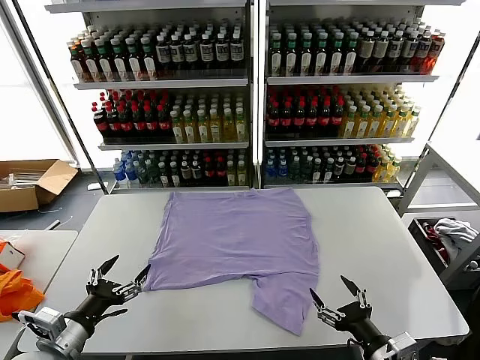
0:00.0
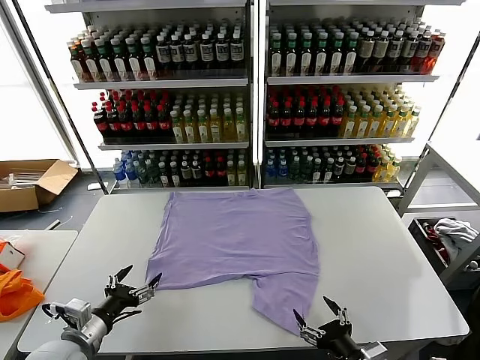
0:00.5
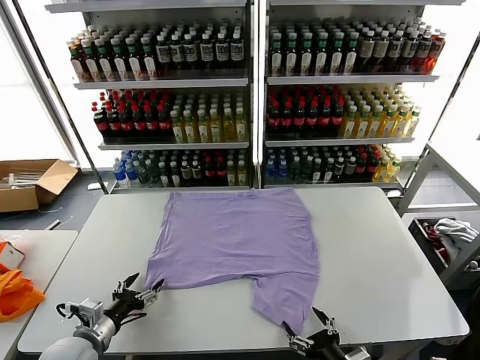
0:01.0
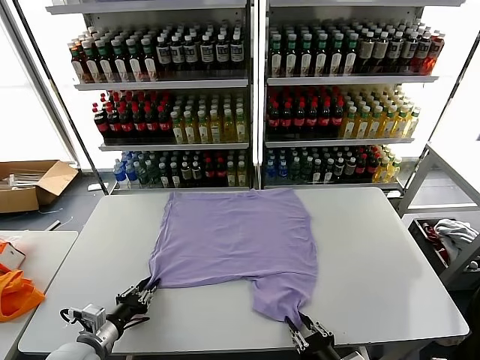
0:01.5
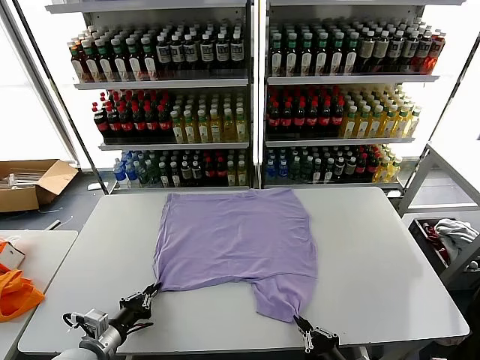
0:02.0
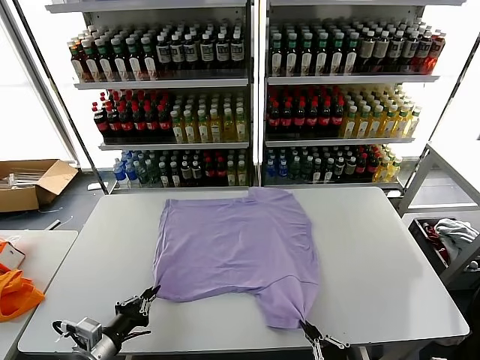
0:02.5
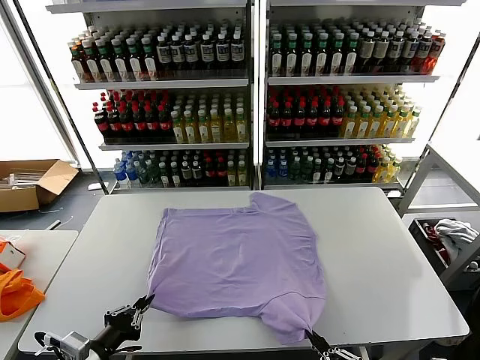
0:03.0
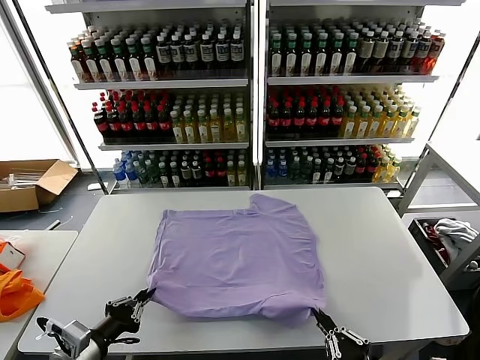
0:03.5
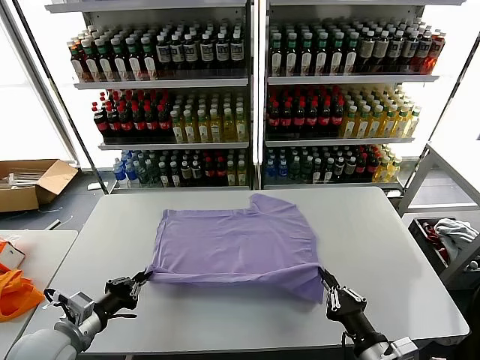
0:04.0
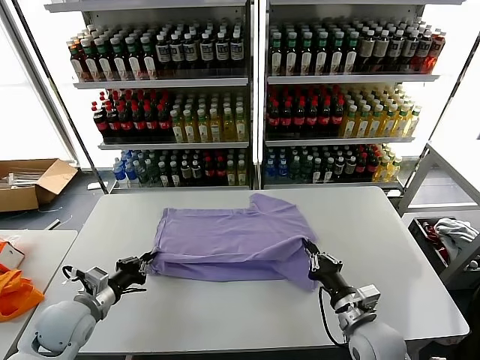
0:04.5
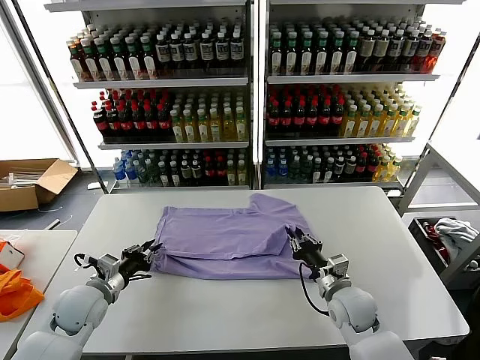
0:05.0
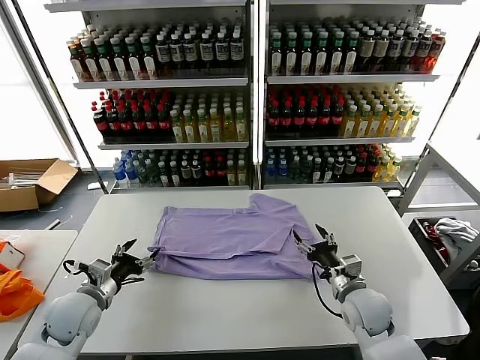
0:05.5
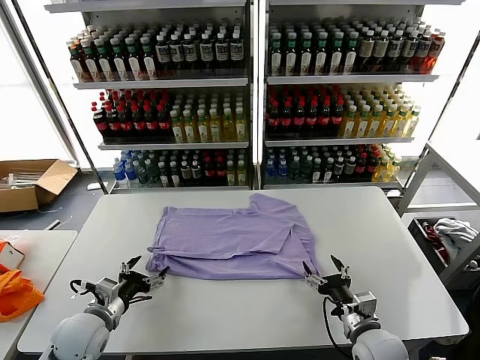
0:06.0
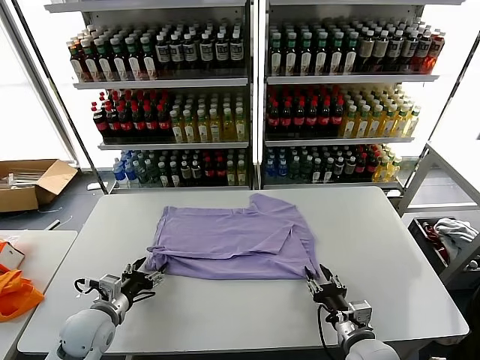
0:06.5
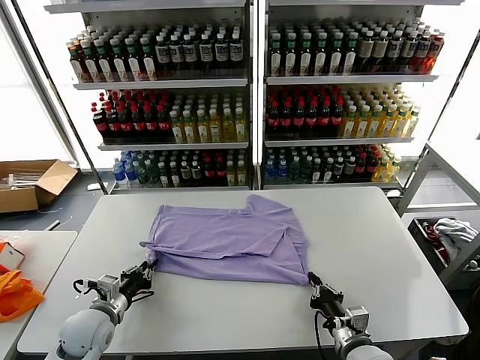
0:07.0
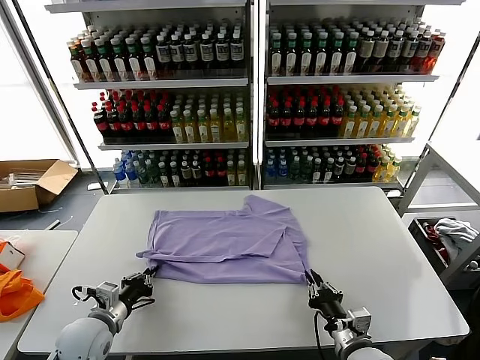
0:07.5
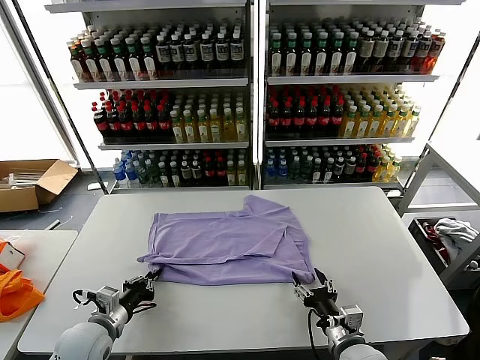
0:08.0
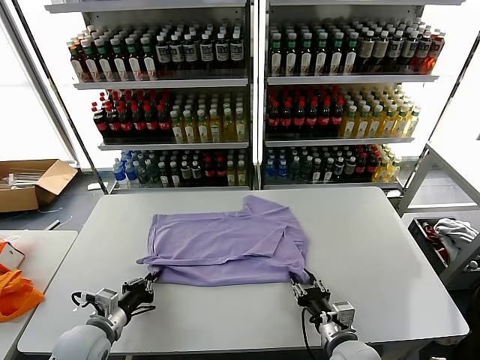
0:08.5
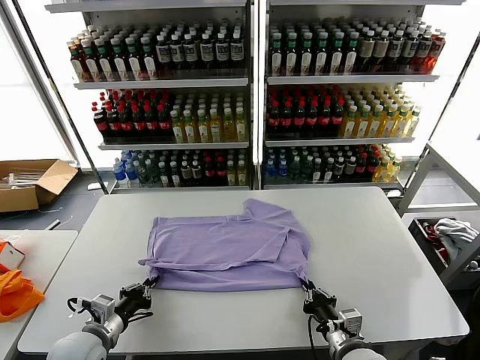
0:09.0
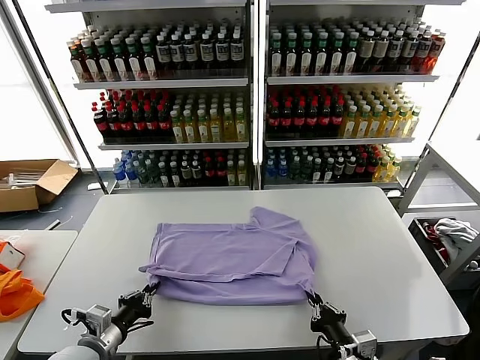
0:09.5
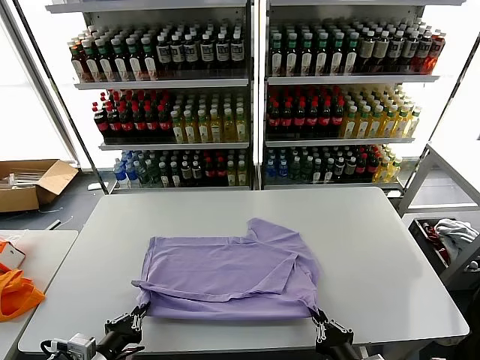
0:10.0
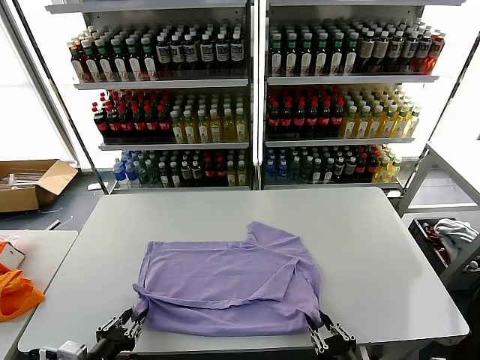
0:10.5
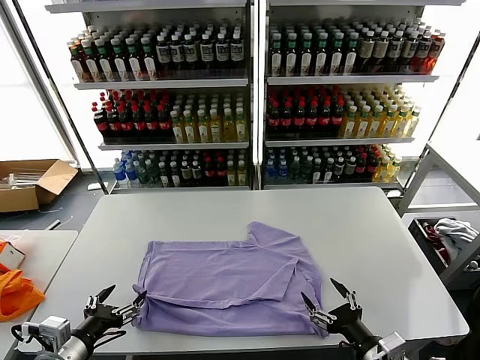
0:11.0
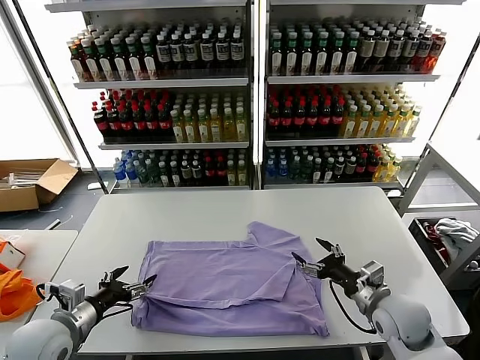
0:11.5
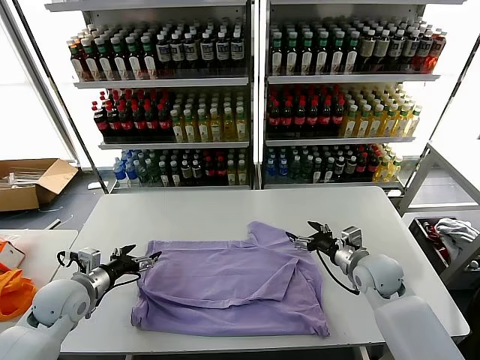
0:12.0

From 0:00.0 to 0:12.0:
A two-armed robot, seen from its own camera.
Task of the whole recording: fold and organize the clothes.
Step, from 0:00.0 to 0:01.5: use both grippers simultaneously to clamp the lower edge of the clothing fabric.
Step, from 0:02.0 to 0:05.0: use both grippers to drag the lower edge of the fabric forward and fold it over the upper edge.
Step, from 0:05.5 to 0:10.5: Drag the clothes downward with both gripper.
From 0:02.0 to 0:04.0: The right gripper travels forward by some 5 cm, while the left gripper heads upward, covering roughly 10 cm.
From 0:04.0 to 0:06.0: The left gripper changes place by about 5 cm, and opens; the right gripper shifts roughly 5 cm forward, and opens.
From 0:06.0 to 0:08.0: The right gripper closes and opens again. The left gripper closes.
From 0:08.0 to 0:10.0: Both grippers travel together backward, some 10 cm. The right gripper closes.
From 0:10.0 to 0:12.0: The right gripper heads forward, covering roughly 30 cm, and opens. Meanwhile the left gripper is displaced forward by some 20 cm, and opens up.

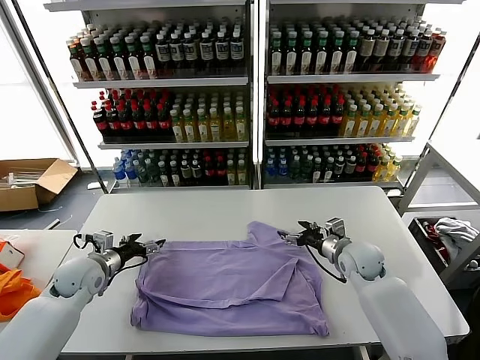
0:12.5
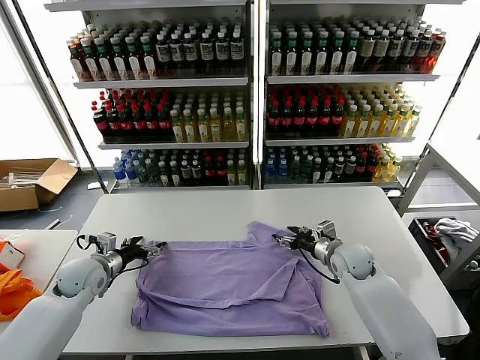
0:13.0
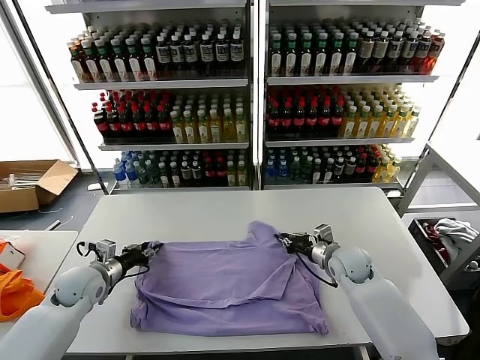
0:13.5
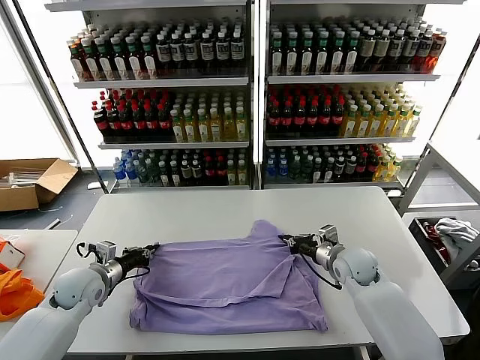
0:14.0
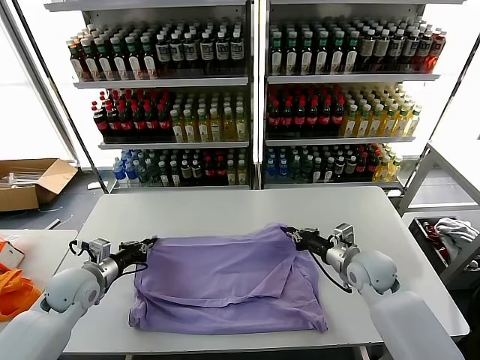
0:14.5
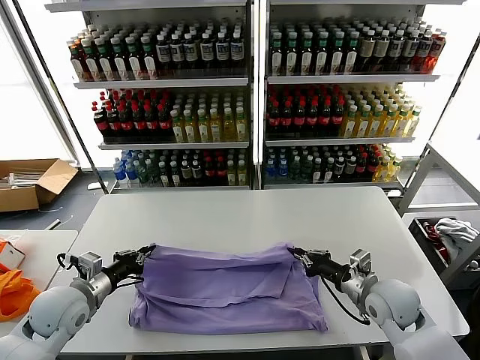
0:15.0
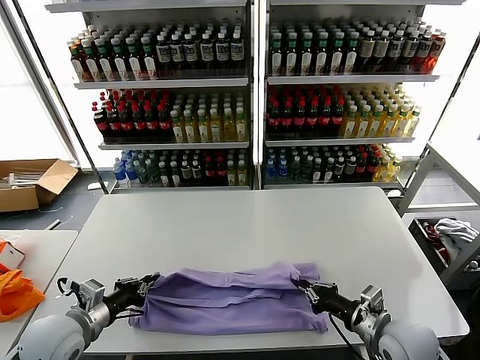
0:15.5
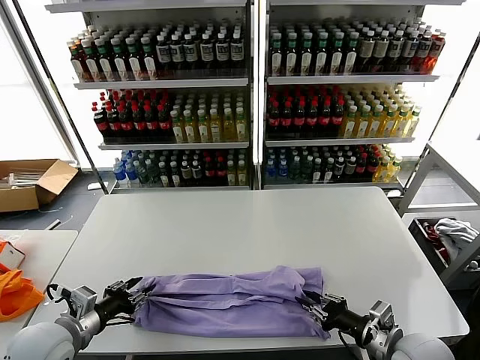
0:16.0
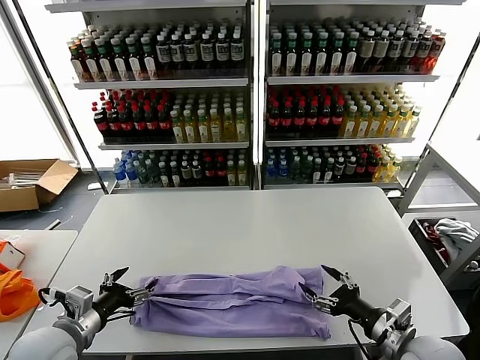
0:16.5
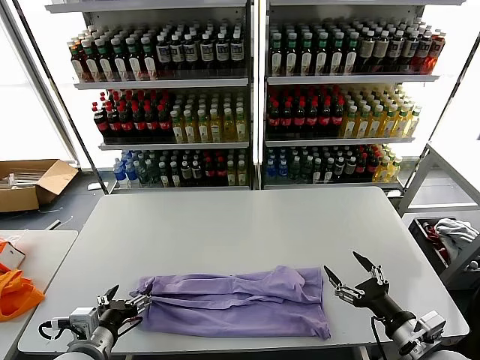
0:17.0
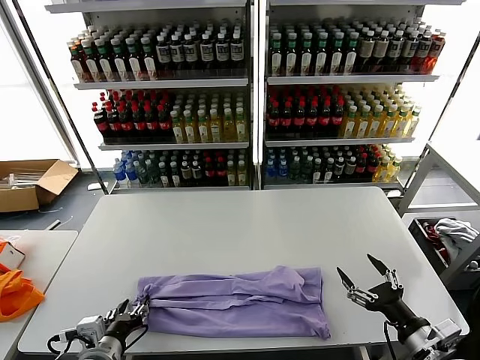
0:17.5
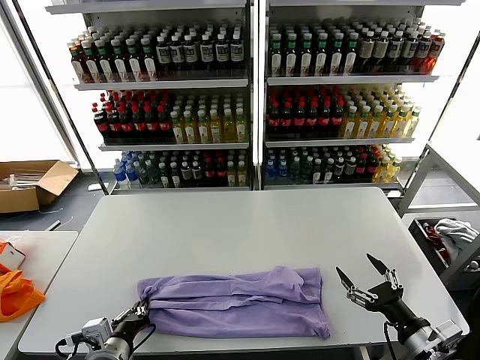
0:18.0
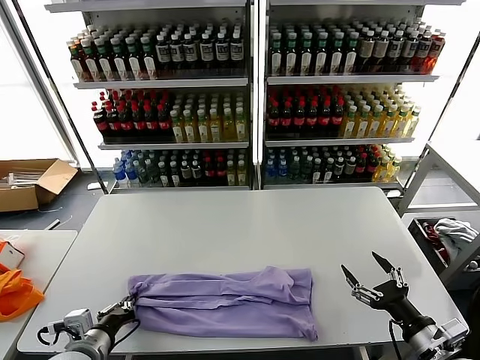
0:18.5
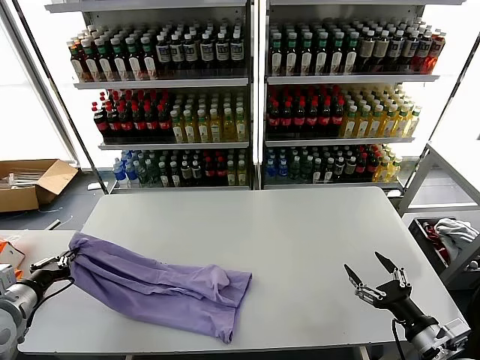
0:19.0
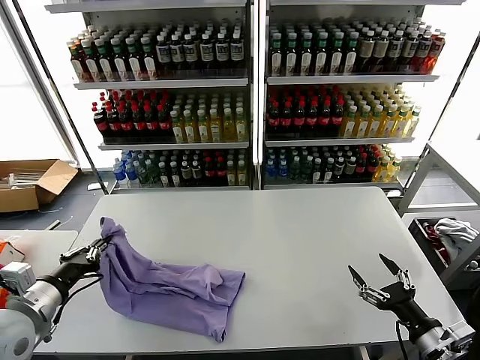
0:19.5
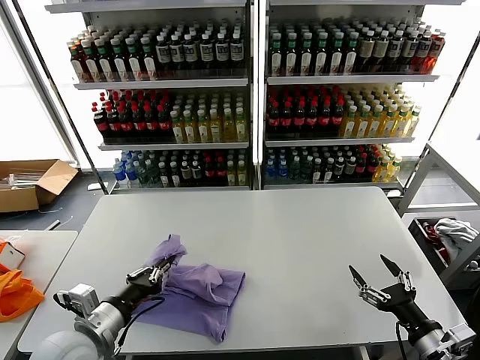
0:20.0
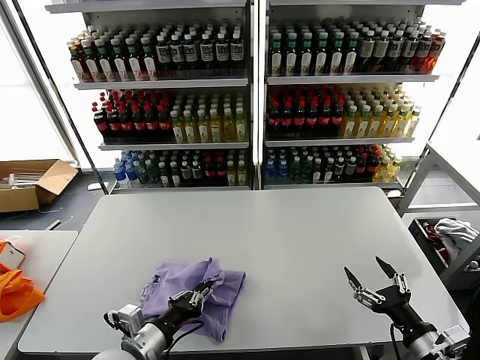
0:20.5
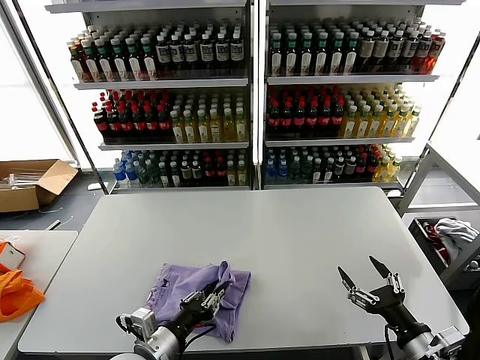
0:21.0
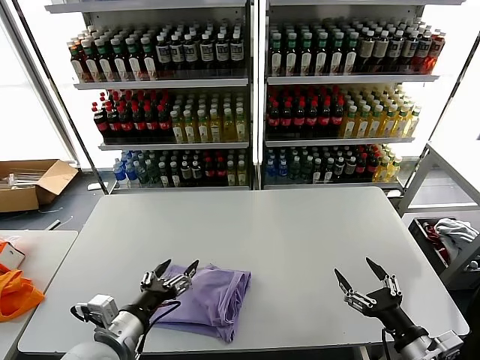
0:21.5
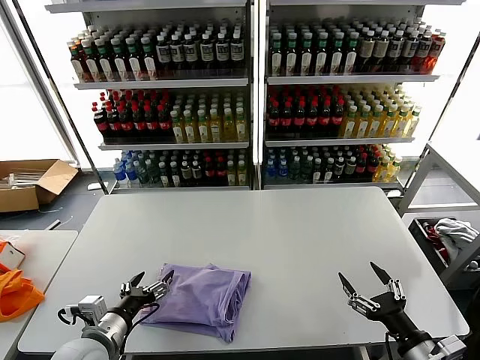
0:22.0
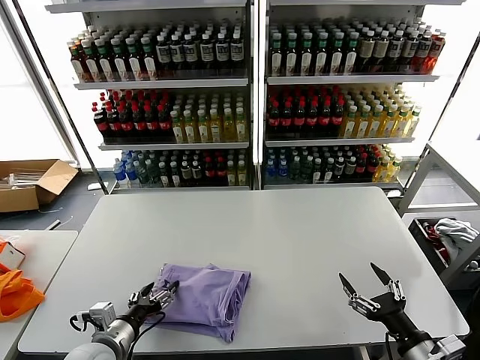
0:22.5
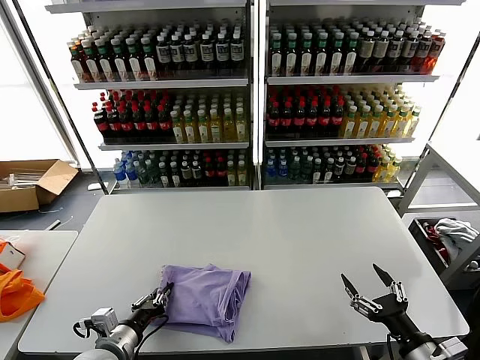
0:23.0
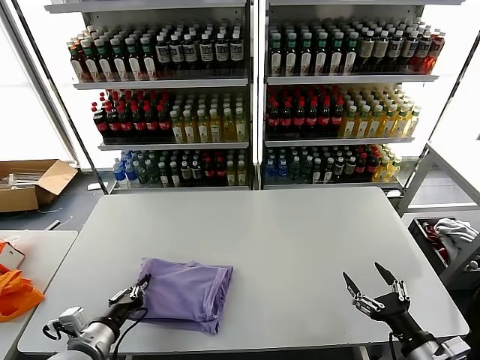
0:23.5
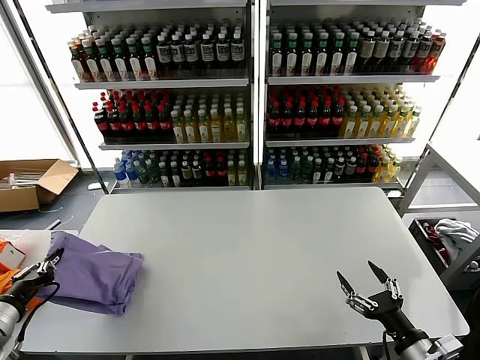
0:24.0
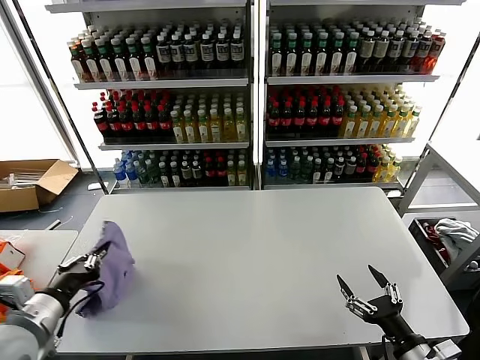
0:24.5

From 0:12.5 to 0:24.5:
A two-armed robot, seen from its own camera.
Task of the whole recording: fold and organize the clothes.
Step, from 0:14.5 to 0:16.0: use both grippers to drag the upper edge of the fabric backward and fold it over the lower edge.
Step, from 0:16.5 to 0:18.0: use the left gripper to clamp the left edge of the fabric.
Step, from 0:18.5 to 0:21.0: use the left gripper to drag the left edge of the fabric to the left and folds it over the right edge.
From 0:12.5 to 0:14.5: The left gripper closes its fingers. The right gripper heads backward, covering approximately 5 cm, and closes its fingers.
From 0:14.5 to 0:16.5: Both grippers move backward, about 15 cm. The right gripper opens, while the left gripper opens its fingers.
From 0:16.5 to 0:18.5: The left gripper closes up. The right gripper ends up some 5 cm from where it was.
From 0:18.5 to 0:20.5: The left gripper goes to the left and returns, approximately 15 cm each way.
From 0:20.5 to 0:22.5: The left gripper shifts roughly 5 cm to the left, and opens its fingers.
From 0:22.5 to 0:24.5: The left gripper travels upward and to the left by some 15 cm, and closes.

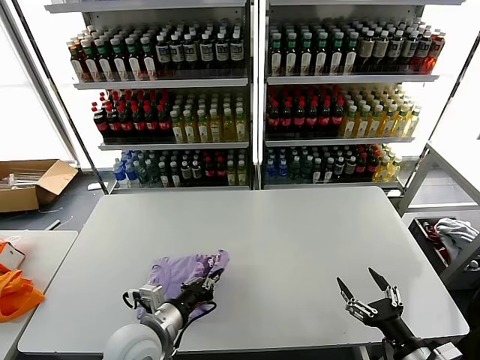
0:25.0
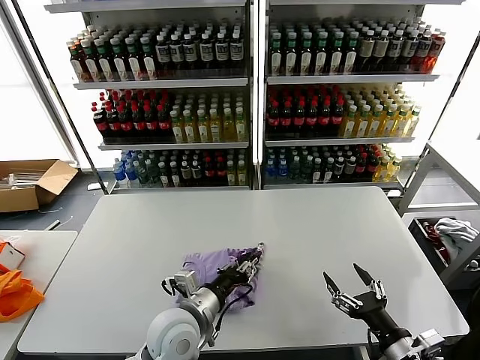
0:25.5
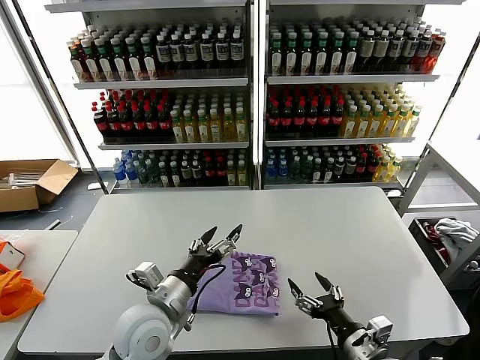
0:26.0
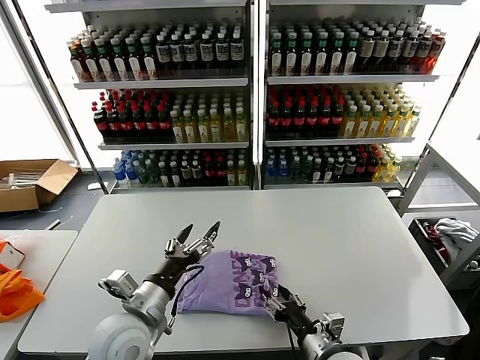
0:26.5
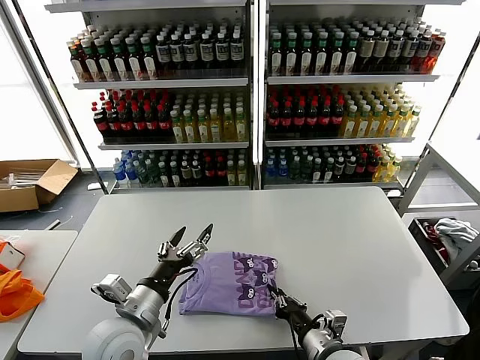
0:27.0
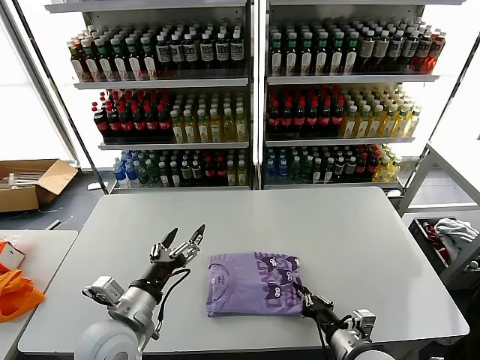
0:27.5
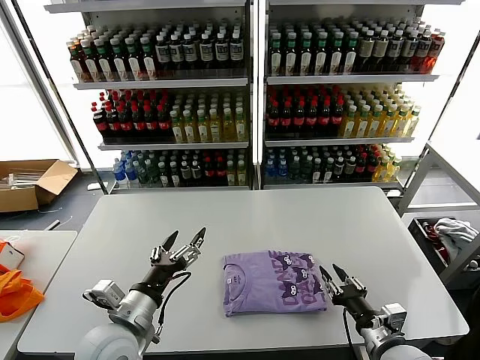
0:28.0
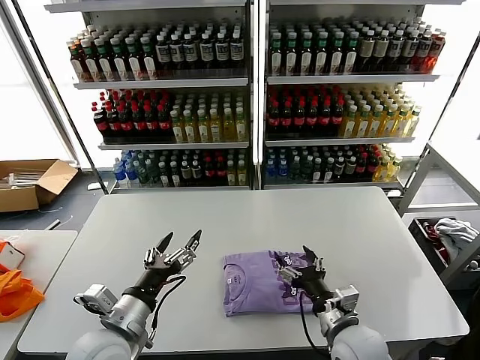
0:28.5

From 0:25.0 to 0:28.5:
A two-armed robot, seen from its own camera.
Task of the whole recording: fold and organize the clothes.
From 0:25.0 to 0:27.0: The right gripper is displaced to the left and forward by approximately 15 cm, and closes up. Meanwhile the left gripper moves some 10 cm to the right and comes back, and opens its fingers.
From 0:27.0 to 0:28.5: The right gripper opens its fingers.
